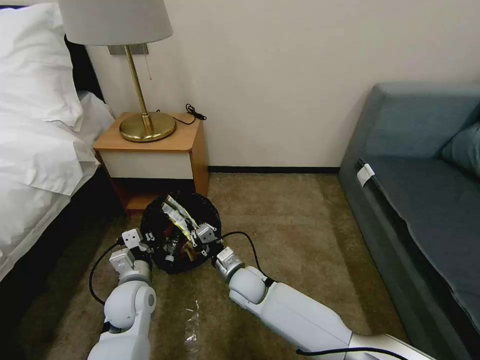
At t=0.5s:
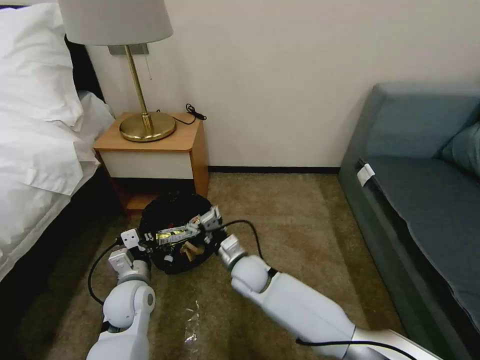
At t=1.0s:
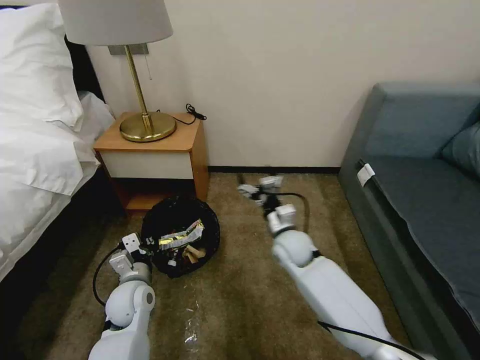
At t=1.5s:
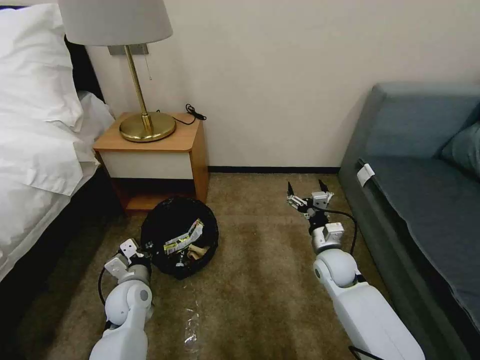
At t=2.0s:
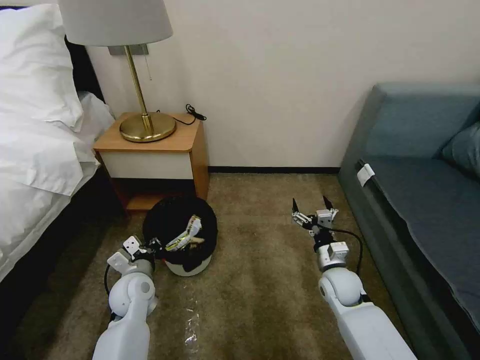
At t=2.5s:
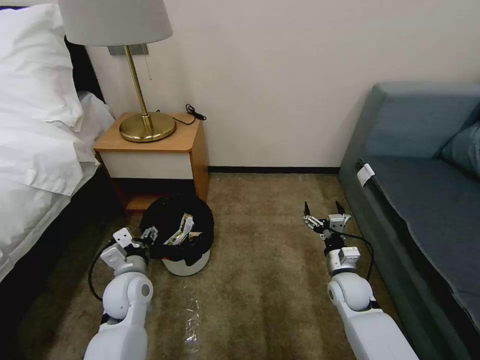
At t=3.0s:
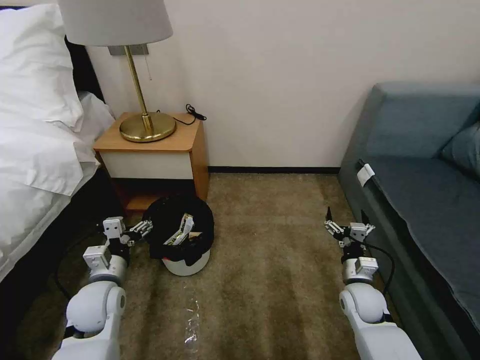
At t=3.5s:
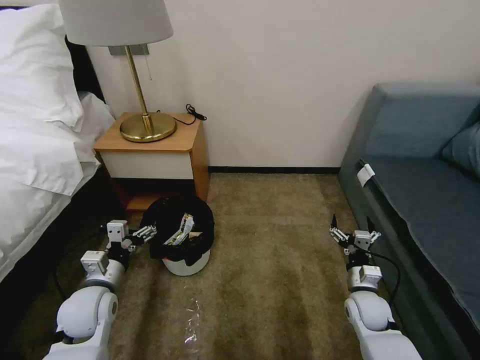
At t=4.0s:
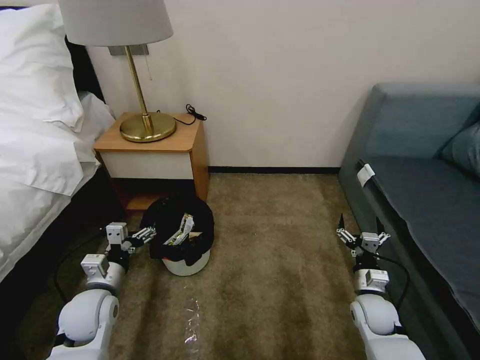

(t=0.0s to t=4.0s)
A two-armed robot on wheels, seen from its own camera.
Task of the whole recording: Pick up the trash bin, then pick up the garbage on the floor and place it into the trash bin.
t=0.0s - t=2.0s: The right gripper travels to the right by approximately 25 cm, and opens its fingers.
t=2.0s - t=4.0s: The right gripper is displaced to the right and backward by about 10 cm; the left gripper moves to the left and backward, some 10 cm, and opens up.

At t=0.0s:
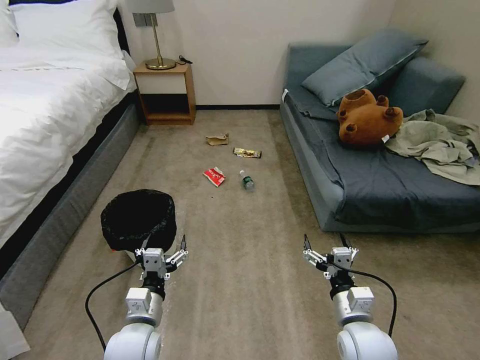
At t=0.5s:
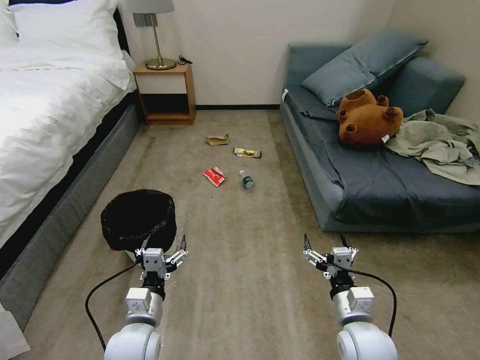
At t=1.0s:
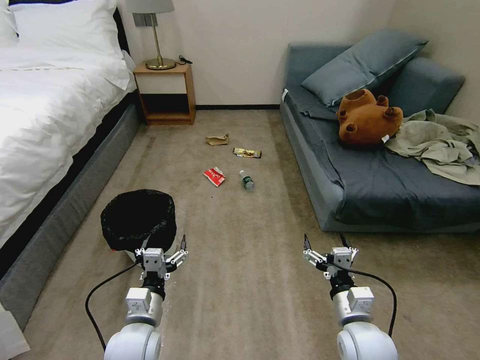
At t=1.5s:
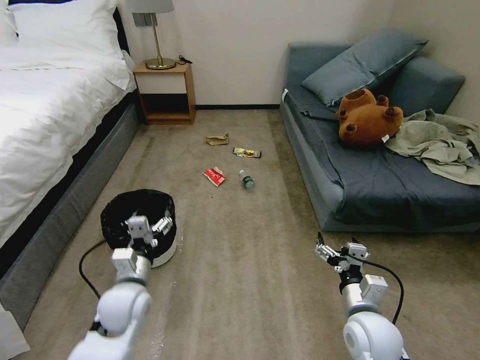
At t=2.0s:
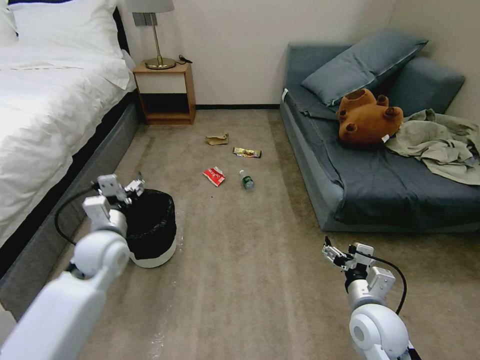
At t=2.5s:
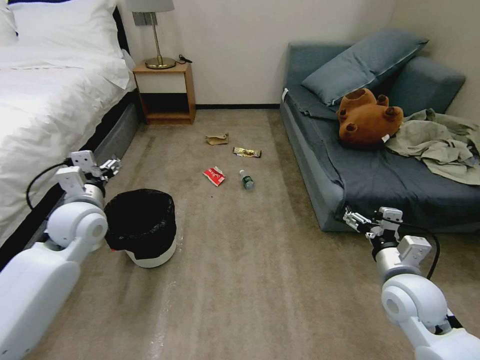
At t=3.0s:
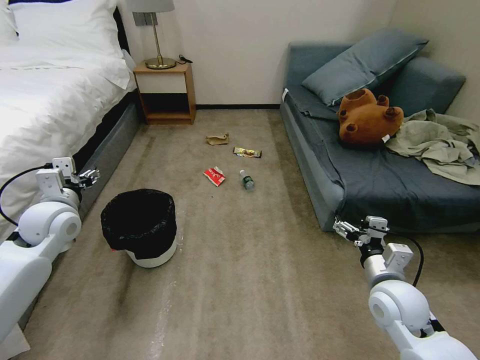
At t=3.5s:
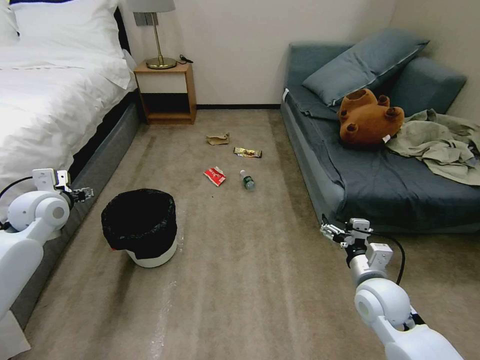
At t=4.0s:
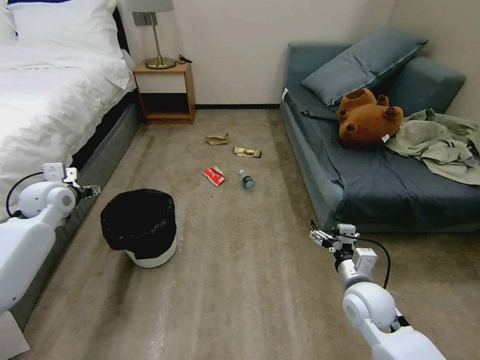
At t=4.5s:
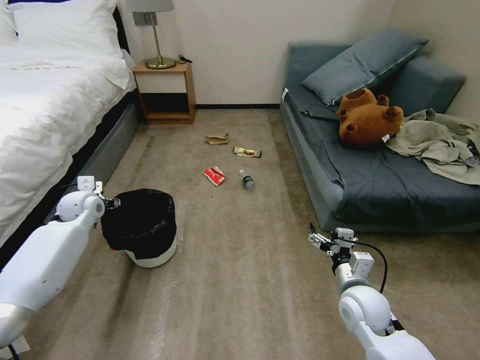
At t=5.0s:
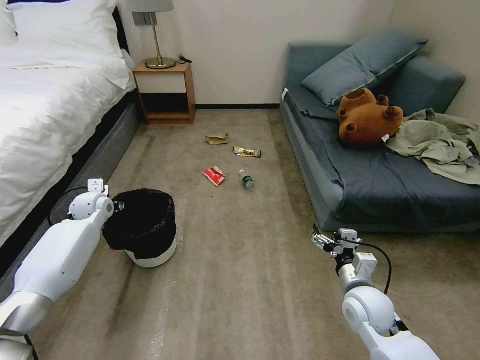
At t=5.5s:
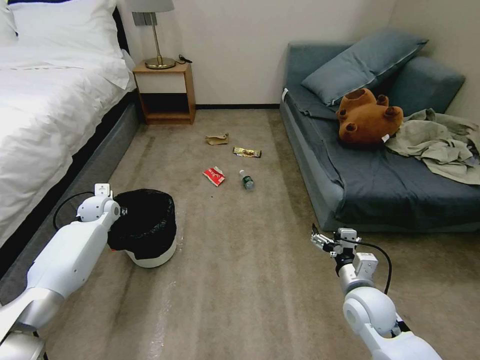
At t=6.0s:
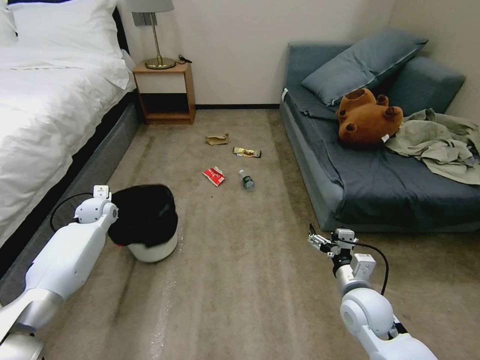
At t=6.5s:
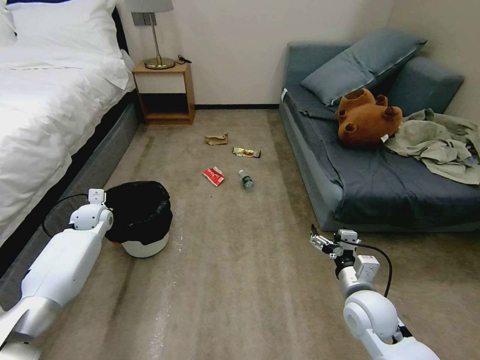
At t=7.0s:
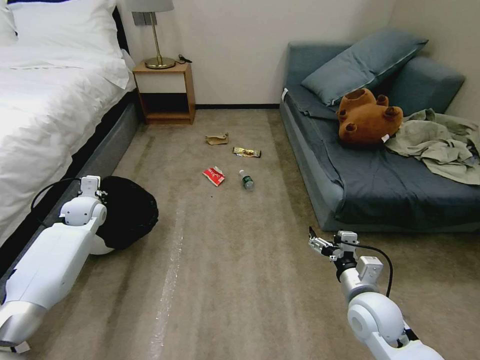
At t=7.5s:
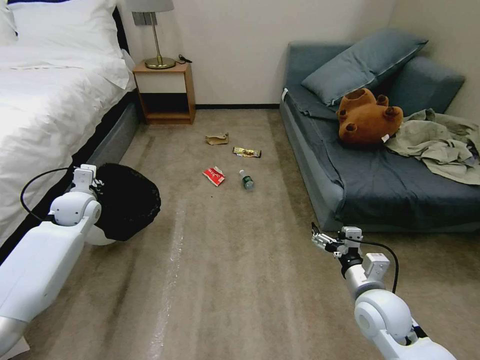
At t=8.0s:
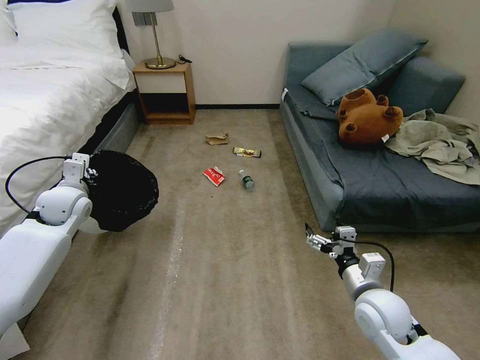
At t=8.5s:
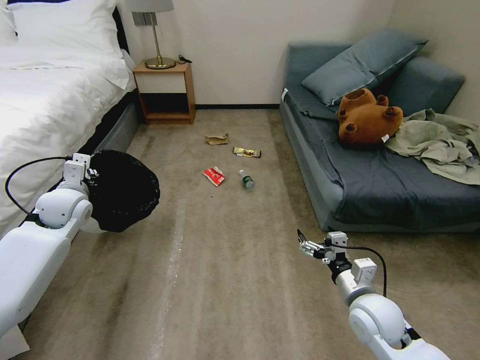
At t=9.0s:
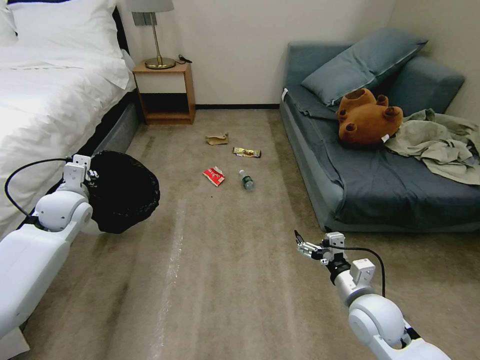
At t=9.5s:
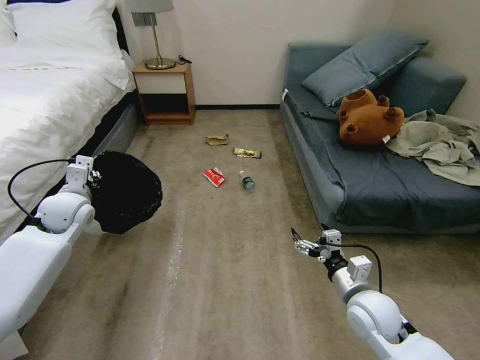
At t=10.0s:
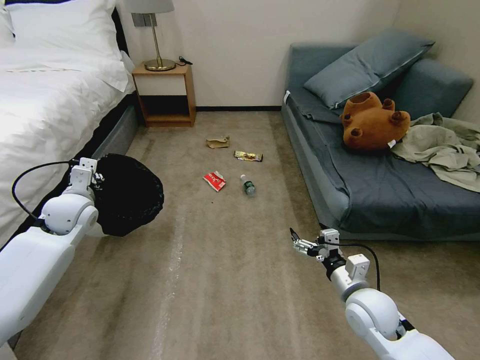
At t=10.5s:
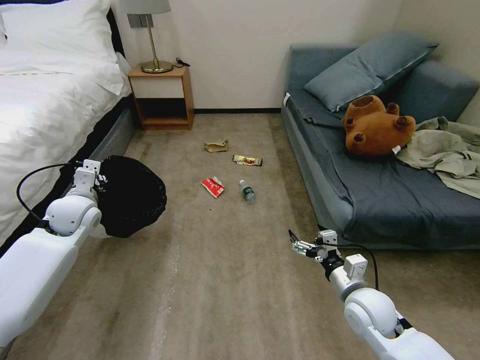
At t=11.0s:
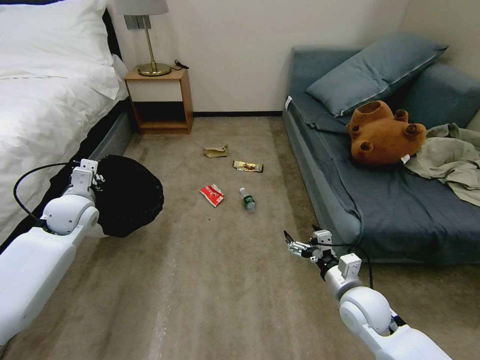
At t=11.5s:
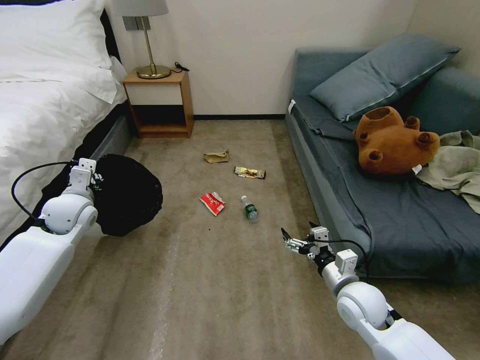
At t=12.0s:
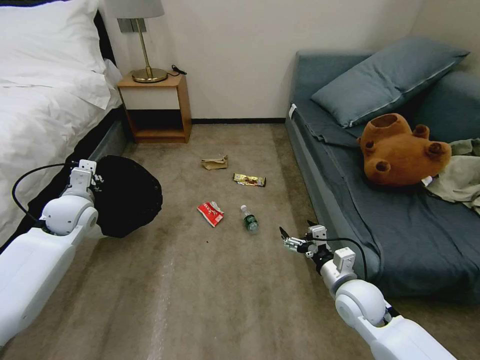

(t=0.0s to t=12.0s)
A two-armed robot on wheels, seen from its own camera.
Task of the whole recording: Pick up the trash bin, then pick up the garbage on the floor and place it into the trash bin.
t=2.0s - t=4.0s: The left gripper heads to the left and forward, covering about 20 cm.
t=4.0s - t=6.0s: The left gripper travels downward and forward by some 15 cm, and closes up.
t=6.0s - t=8.0s: The left gripper goes some 15 cm upward and backward.
t=8.0s - t=10.0s: The grippers stay close to where they were, moving slightly.

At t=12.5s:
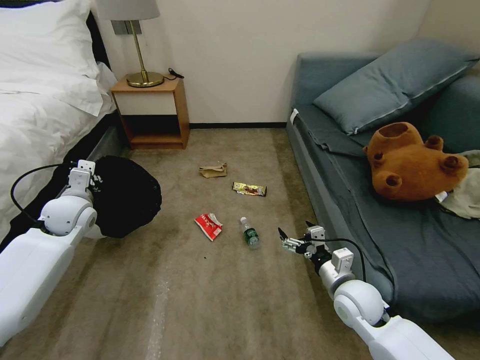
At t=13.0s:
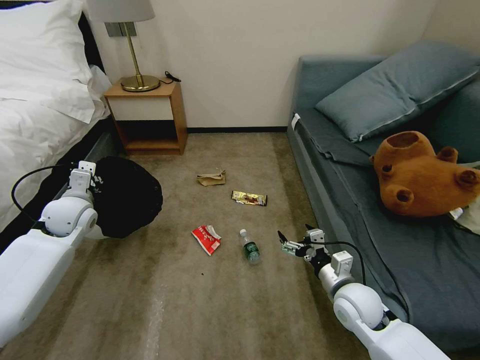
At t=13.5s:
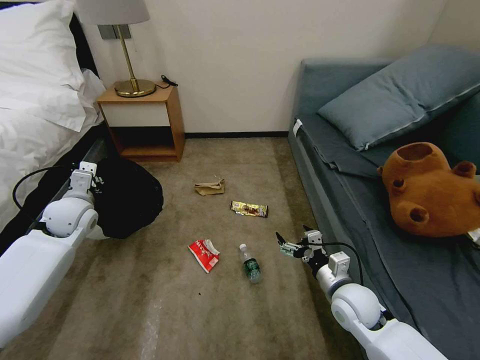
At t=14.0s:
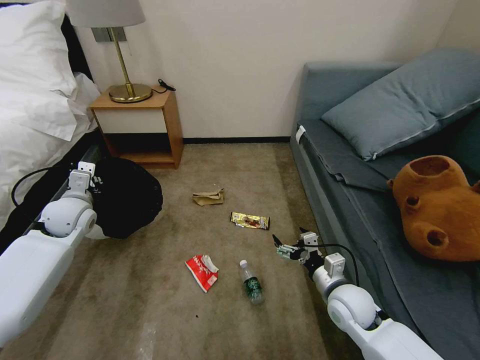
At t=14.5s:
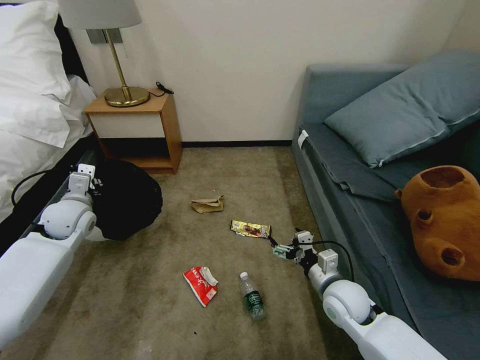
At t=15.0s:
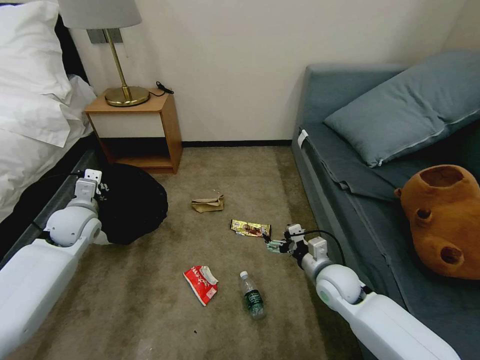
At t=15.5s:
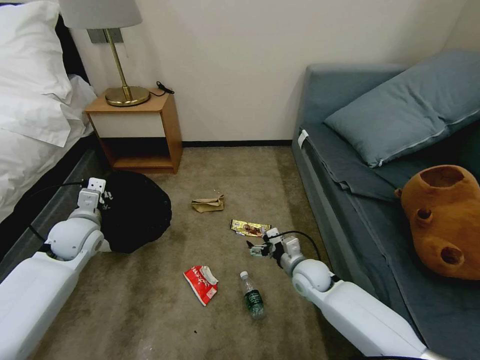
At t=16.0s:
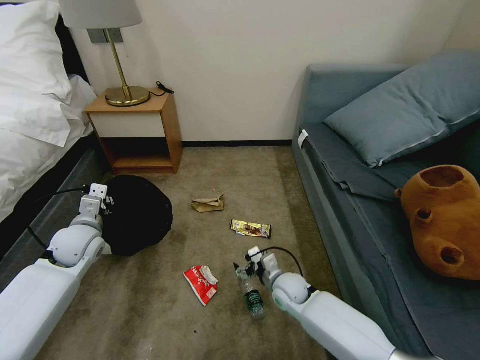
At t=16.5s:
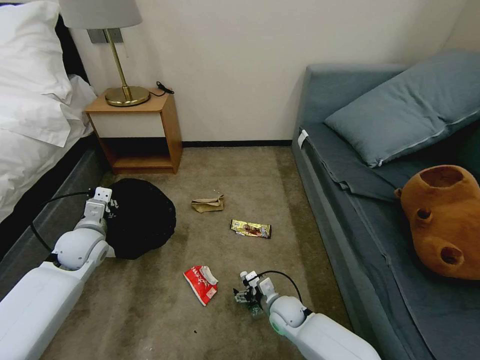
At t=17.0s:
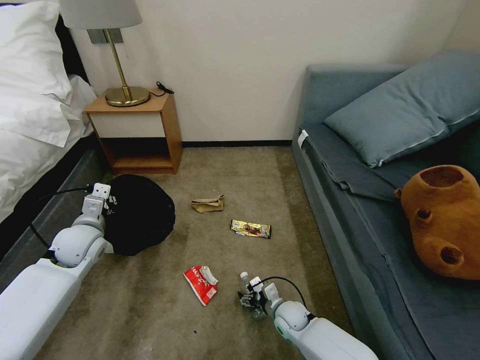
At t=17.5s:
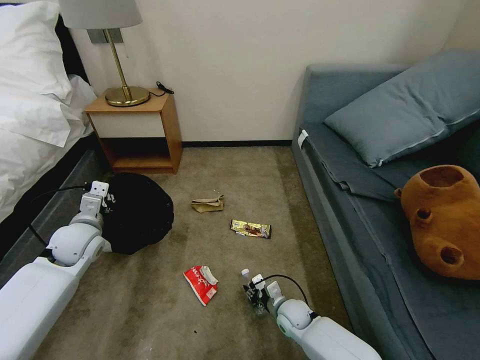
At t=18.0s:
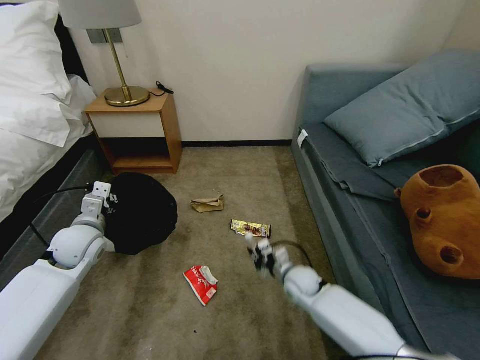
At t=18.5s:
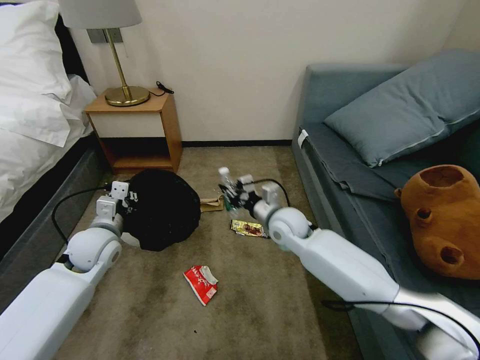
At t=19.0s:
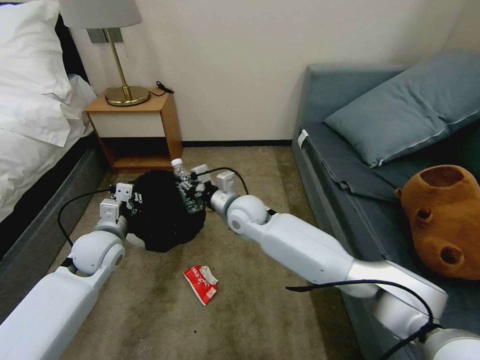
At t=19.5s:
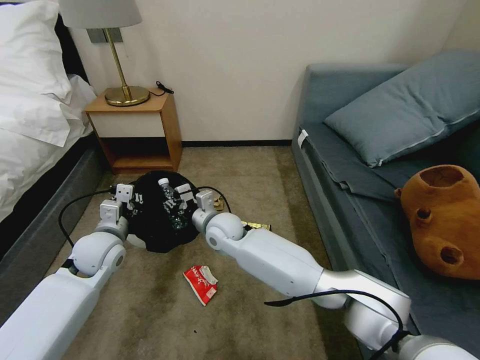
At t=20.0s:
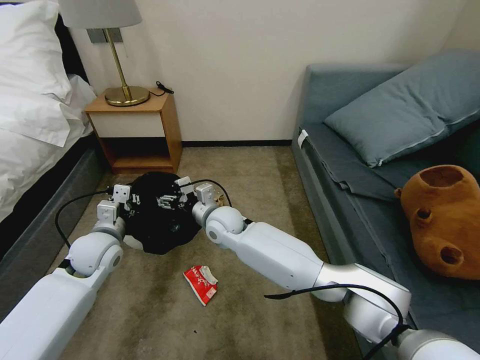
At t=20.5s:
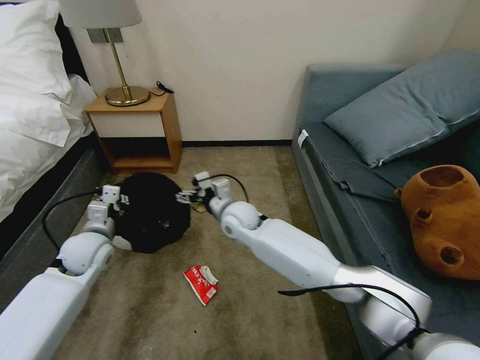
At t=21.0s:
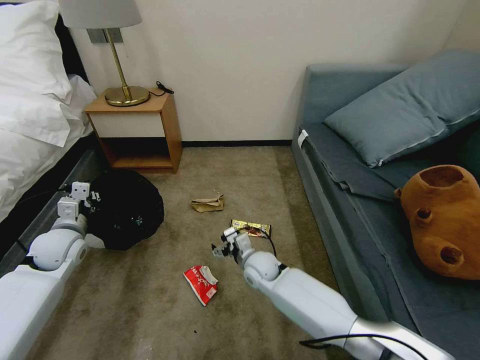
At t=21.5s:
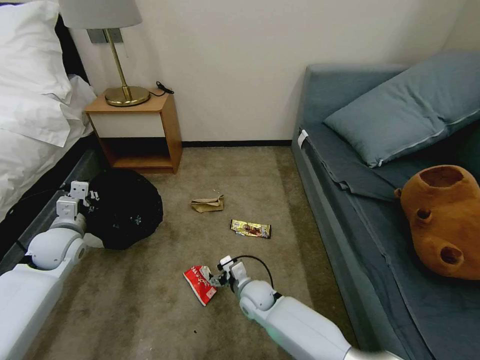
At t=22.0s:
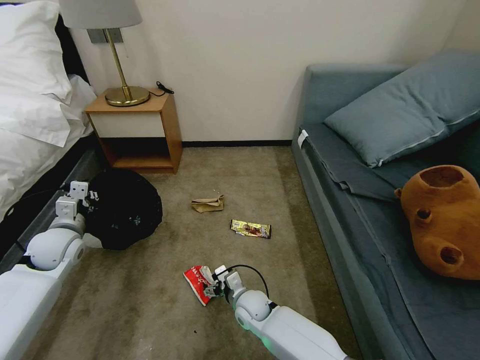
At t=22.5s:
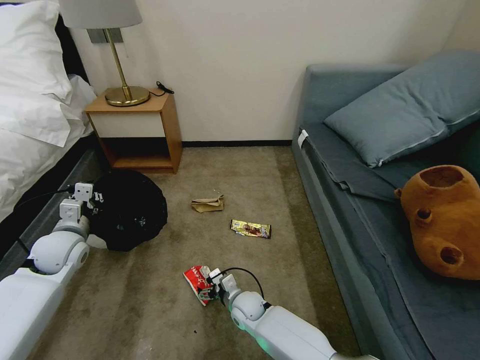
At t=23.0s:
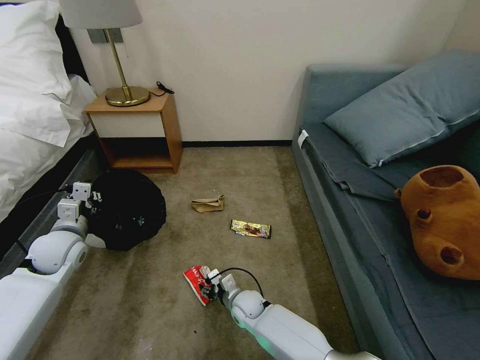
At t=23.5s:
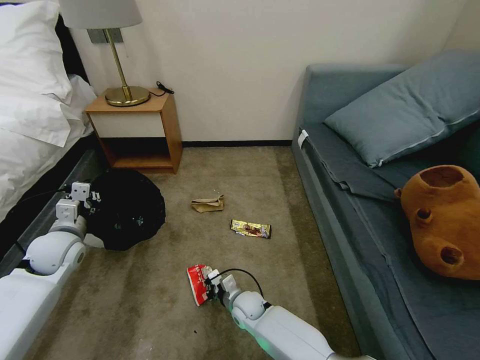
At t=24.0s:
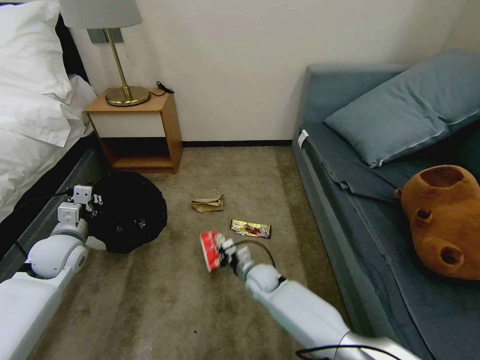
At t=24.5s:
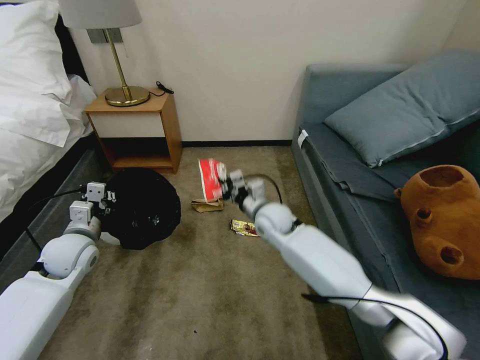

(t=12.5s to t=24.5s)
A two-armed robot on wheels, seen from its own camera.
Task of the whole recording: Pick up the trash bin, then pick up the garbage on the floor and place it into the trash bin.
t=14.5s - t=16.5s: The right gripper shifts some 20 cm downward and to the left; the left gripper changes place by some 10 cm.
t=16.5s - t=18.5s: The right gripper shifts roughly 30 cm upward and forward, and closes its fingers.
t=18.5s - t=20.5s: The right gripper goes approximately 10 cm to the left, and opens its fingers.
t=20.5s - t=22.5s: The right gripper travels downward and backward by about 30 cm; the left gripper heads to the left, covering roughly 5 cm.
t=22.5s - t=24.5s: The right gripper goes about 20 cm upward, forward and to the right, and closes up.
